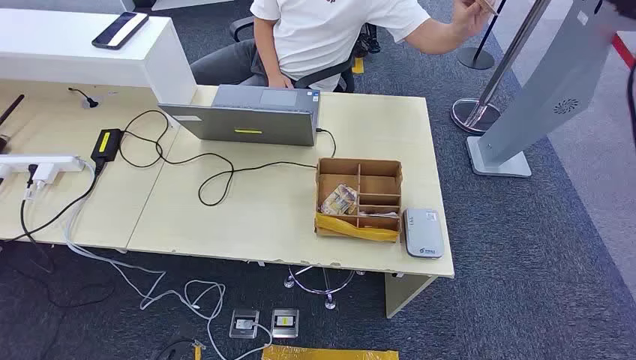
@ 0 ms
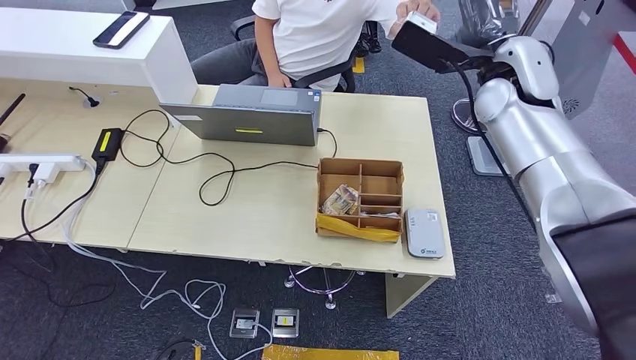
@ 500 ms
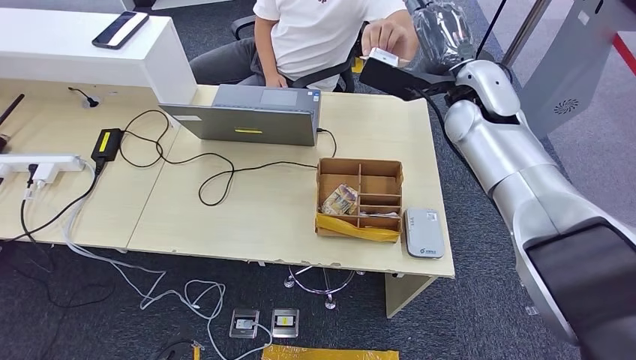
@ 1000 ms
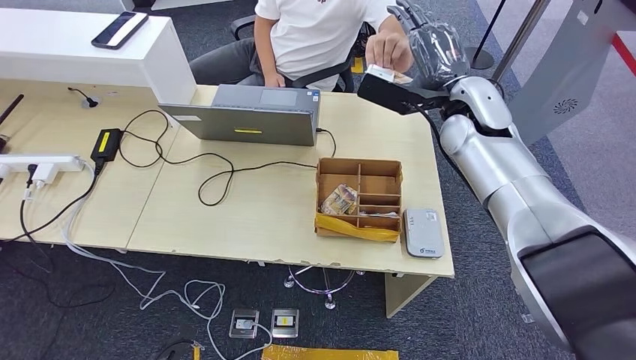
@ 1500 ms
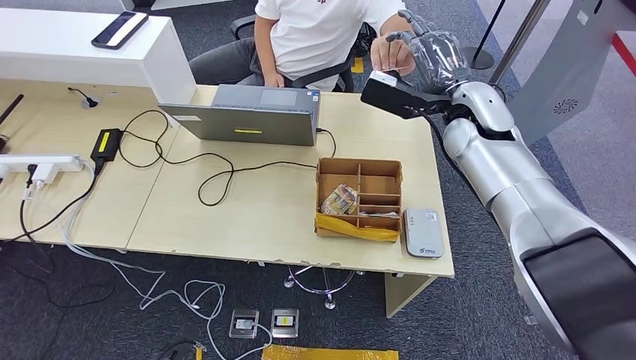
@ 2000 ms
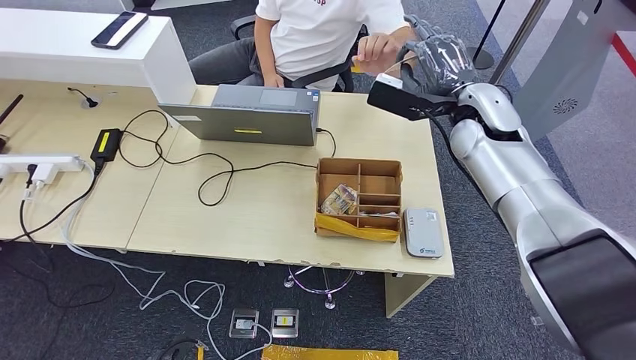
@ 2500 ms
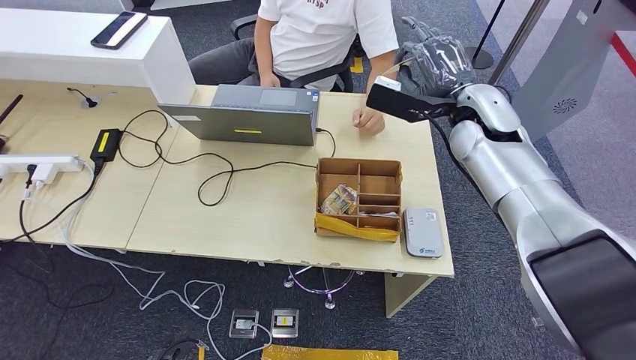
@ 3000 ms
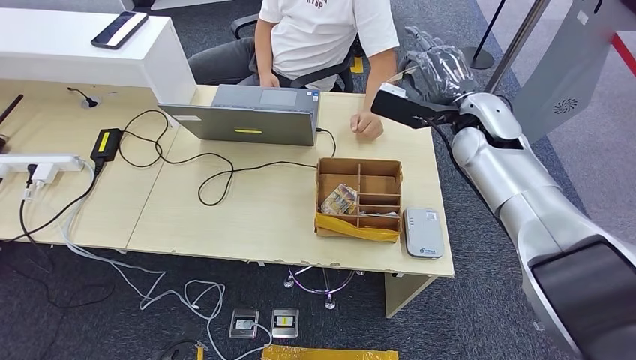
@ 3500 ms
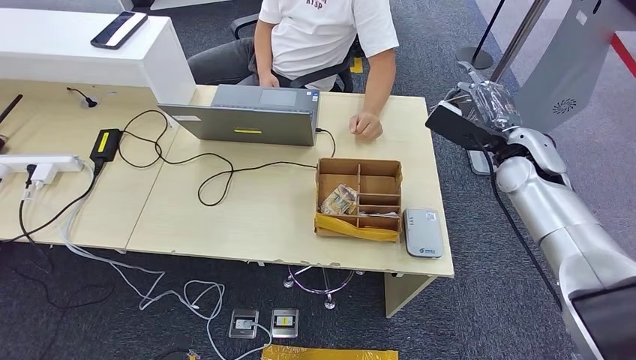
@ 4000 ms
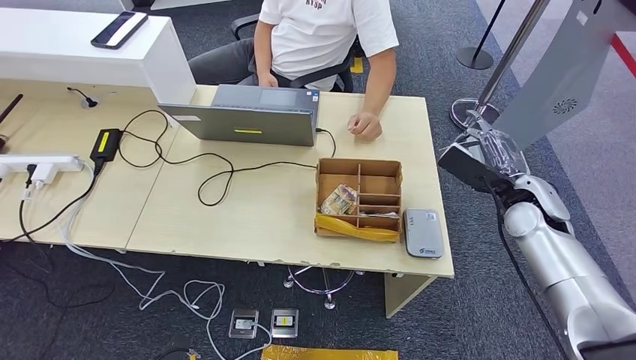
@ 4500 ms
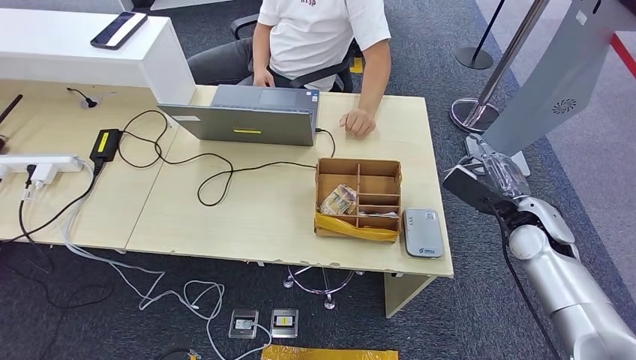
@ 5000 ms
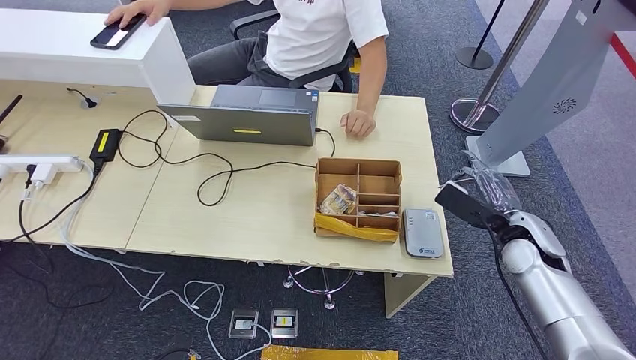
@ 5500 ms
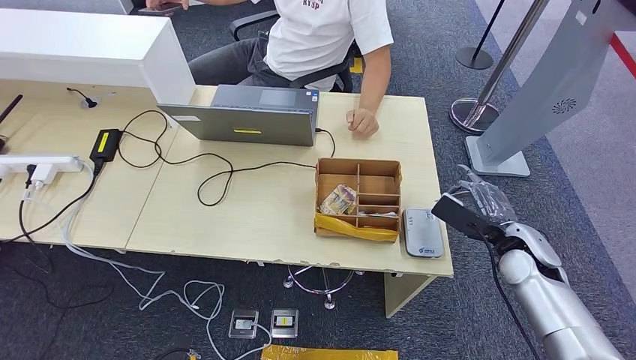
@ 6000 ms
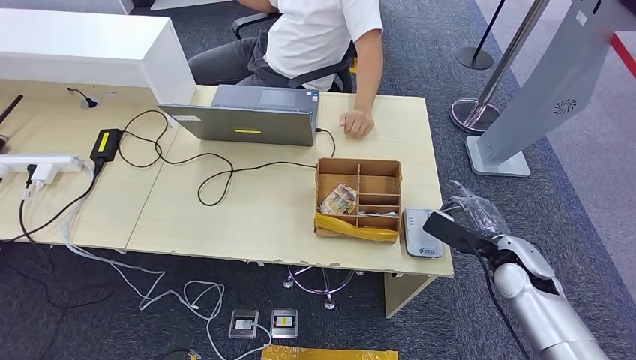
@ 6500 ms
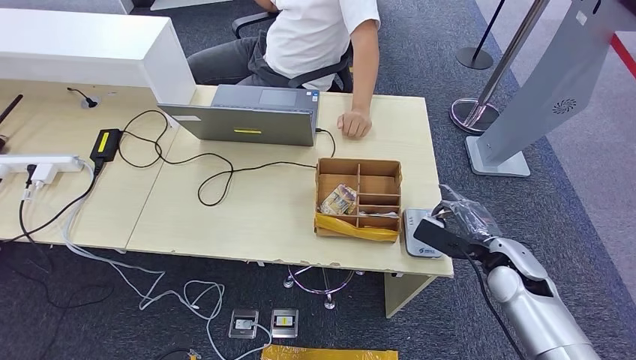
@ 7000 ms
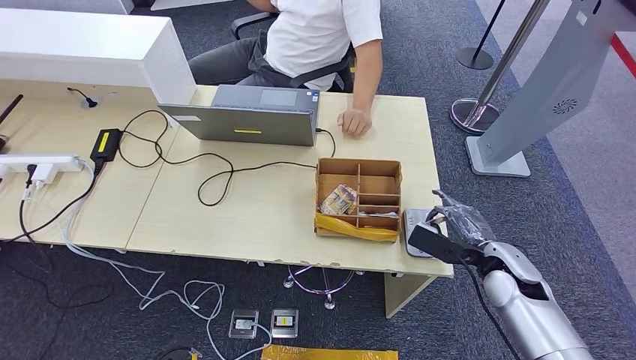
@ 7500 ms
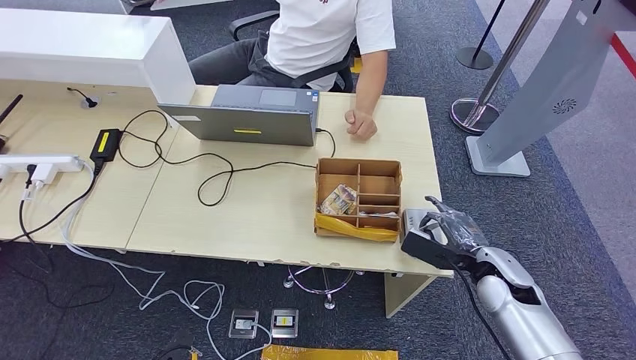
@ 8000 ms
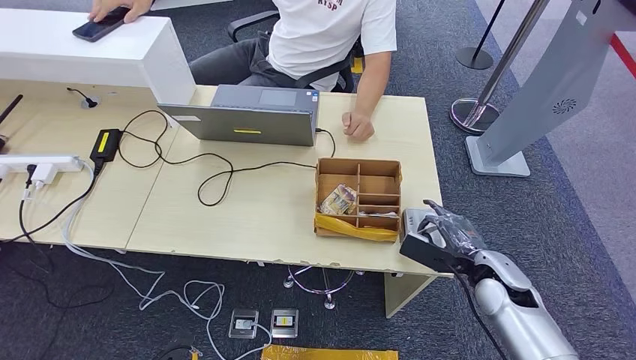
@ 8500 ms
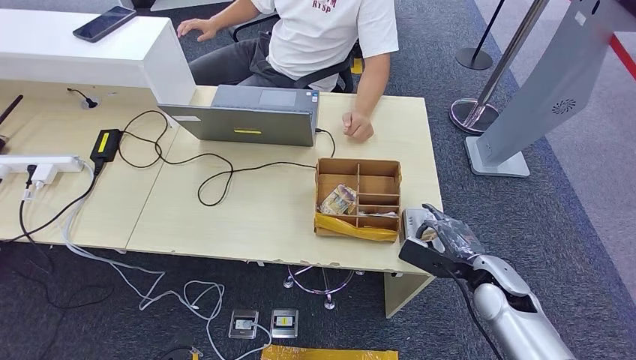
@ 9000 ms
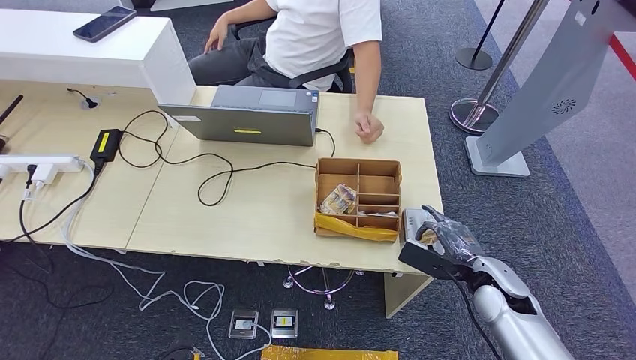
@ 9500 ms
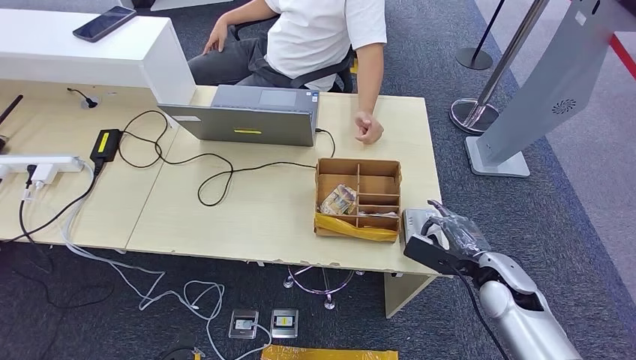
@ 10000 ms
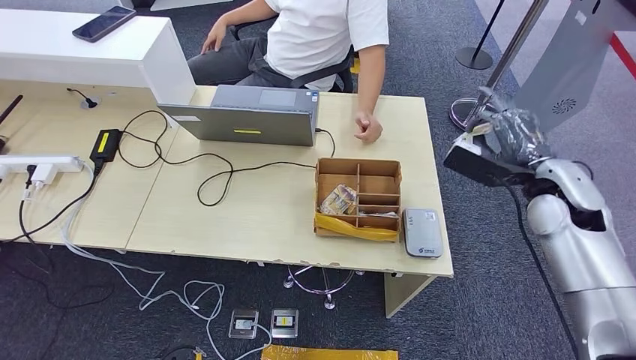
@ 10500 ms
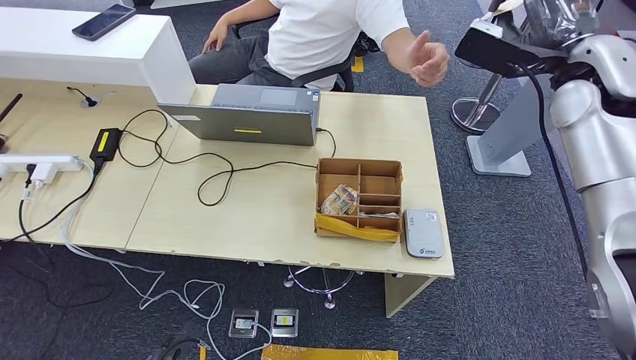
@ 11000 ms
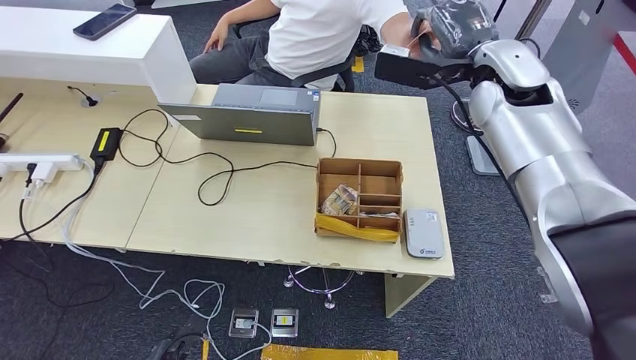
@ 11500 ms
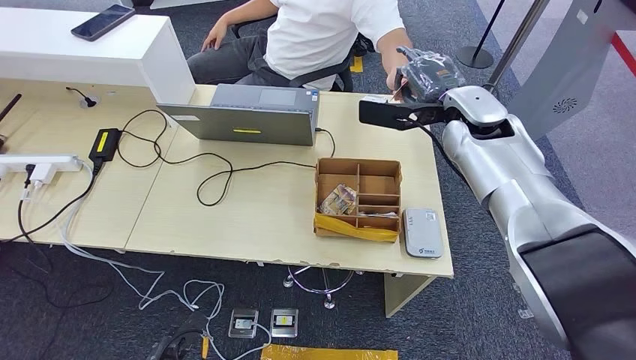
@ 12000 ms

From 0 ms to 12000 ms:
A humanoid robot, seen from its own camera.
Step, from 0 ms to 2500 ms: Take the ID card from the person's hand.
Step, from 3000 ms to 8500 ms: Place the ID card on the card reader.
From 2000 ms to 4000 ms: The right hand goes about 10 cm to the right and downward.
From 4000 ms to 6000 ms: The right hand is displaced downward and backward by about 15 cm.
From 6000 ms to 8000 ms: The right hand changes place by roughly 5 cm.
From 8000 ms to 10000 ms: There are only small adjustments of the hands.
From 10000 ms to 12000 ms: The right hand goes roughly 30 cm upward, forward and to the left.

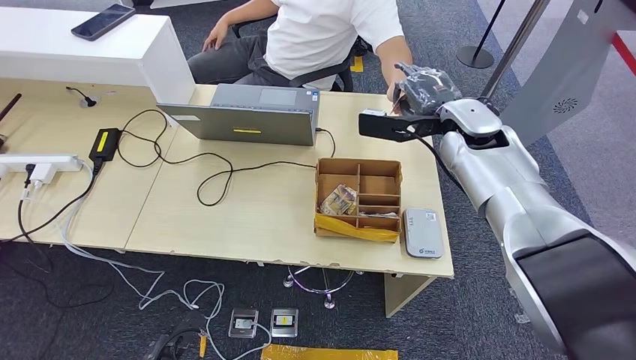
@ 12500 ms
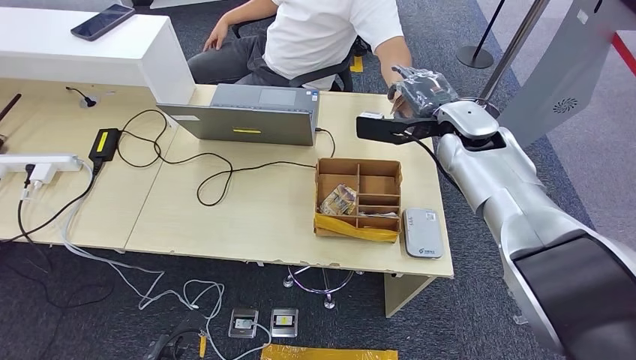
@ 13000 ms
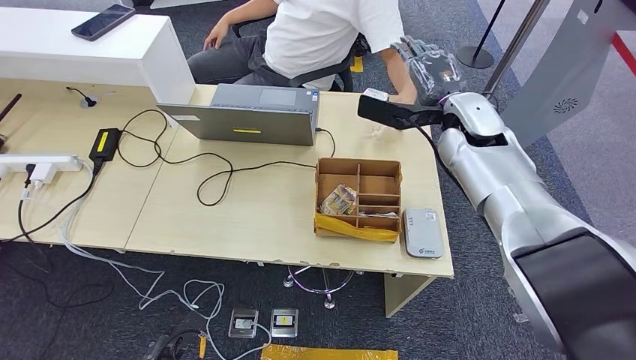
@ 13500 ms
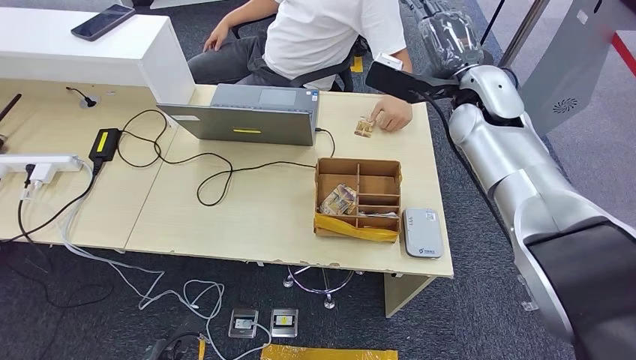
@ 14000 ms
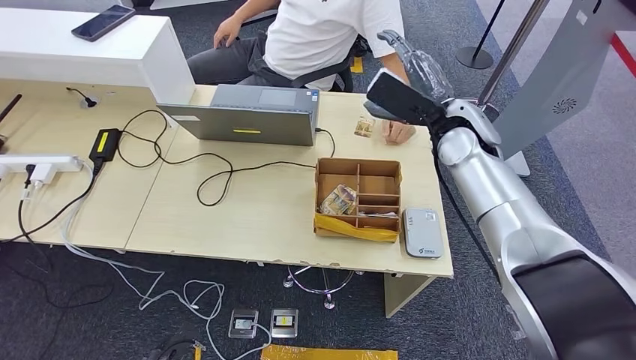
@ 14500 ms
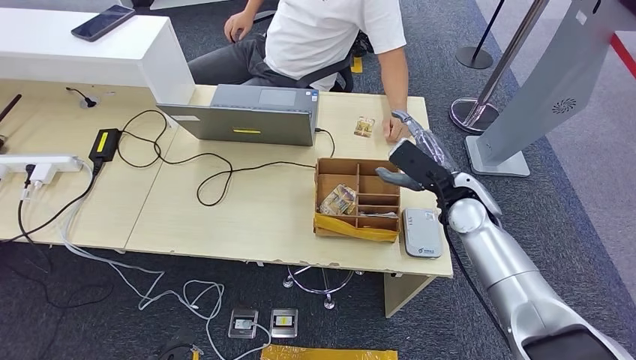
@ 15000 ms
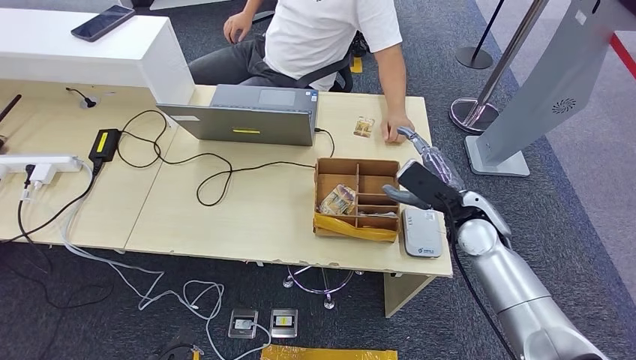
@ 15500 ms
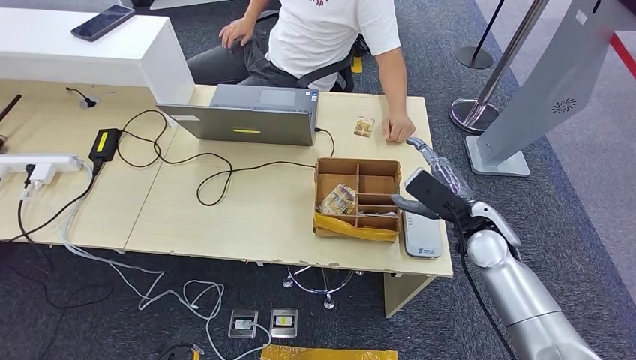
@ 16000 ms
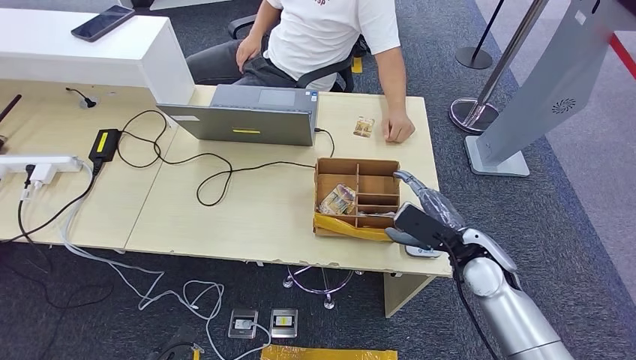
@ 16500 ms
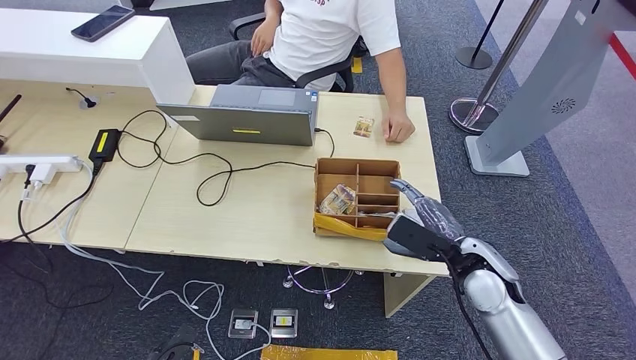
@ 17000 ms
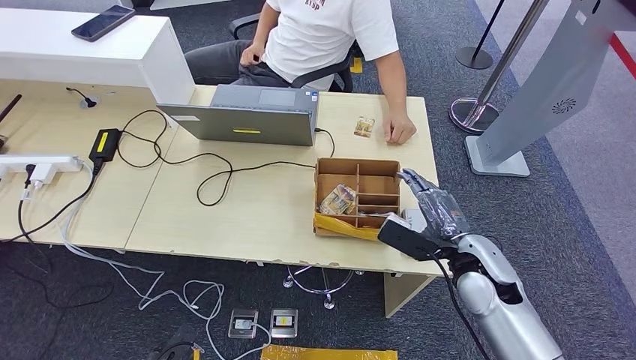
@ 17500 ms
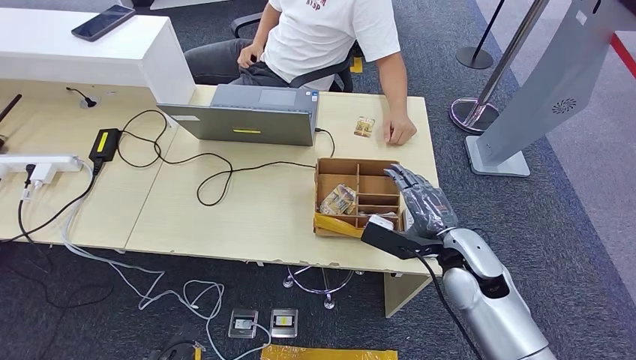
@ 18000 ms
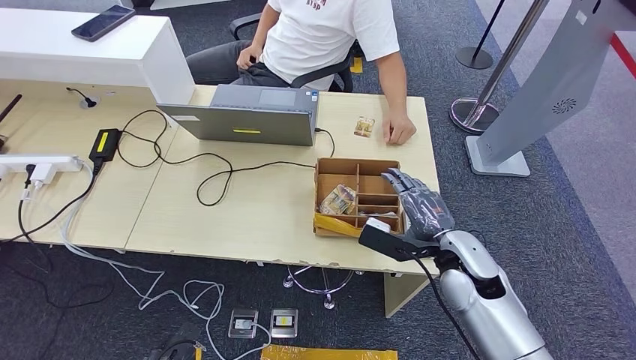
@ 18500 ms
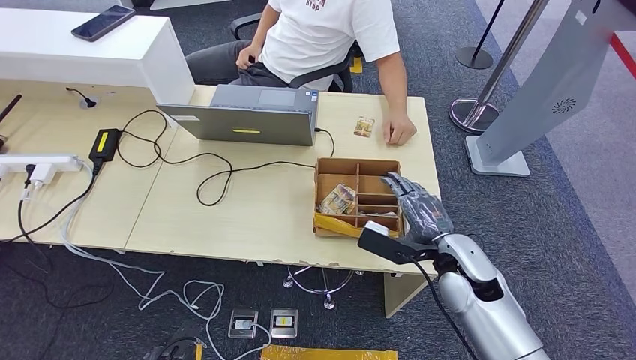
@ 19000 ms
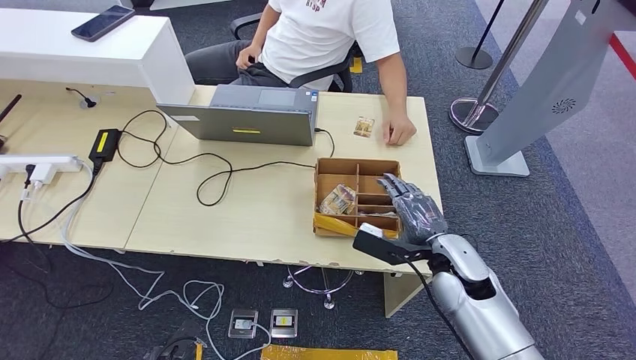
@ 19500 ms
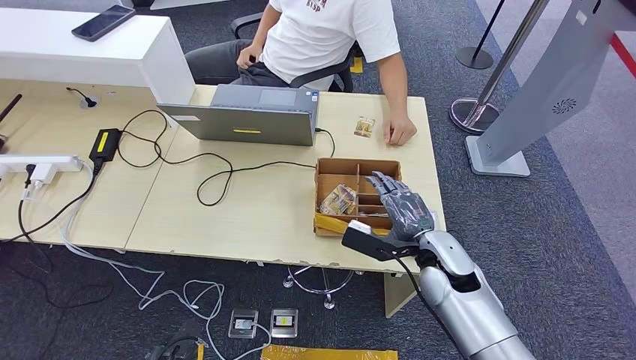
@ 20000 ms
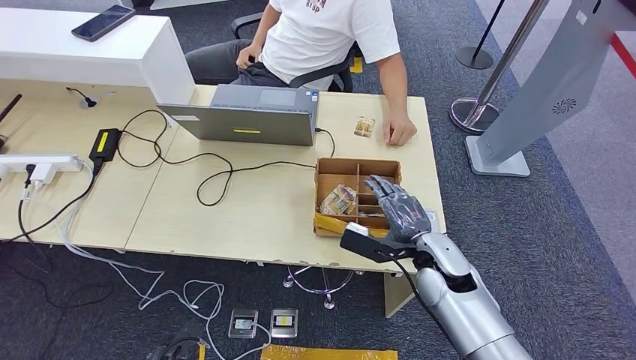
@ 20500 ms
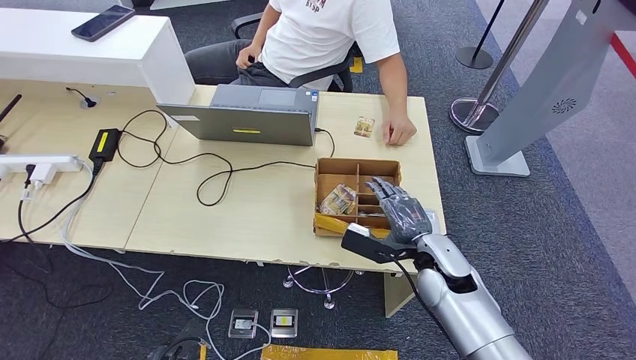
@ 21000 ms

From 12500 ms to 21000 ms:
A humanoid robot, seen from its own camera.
From 14500 ms to 16500 ms: The right hand heads downward and backward, covering some 20 cm.
From 19000 ms to 21000 ms: The hands move only a little.
